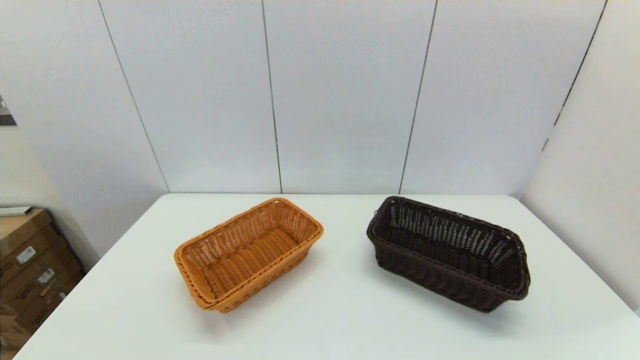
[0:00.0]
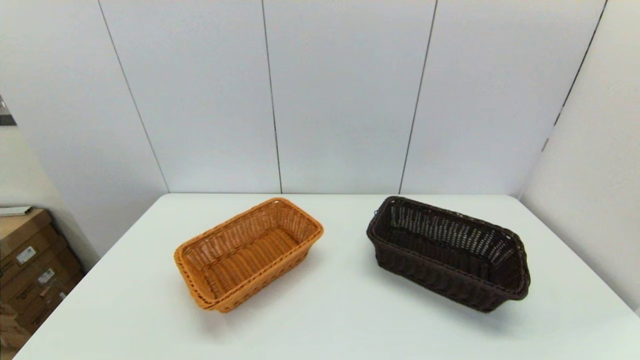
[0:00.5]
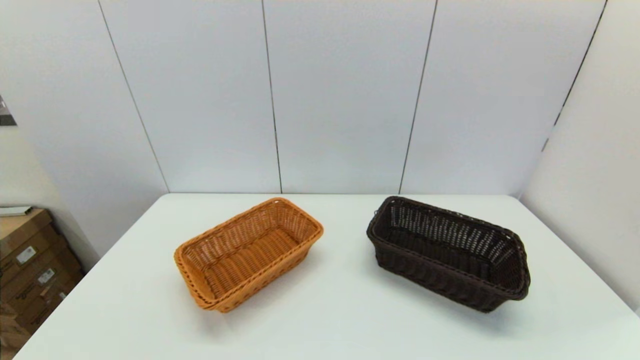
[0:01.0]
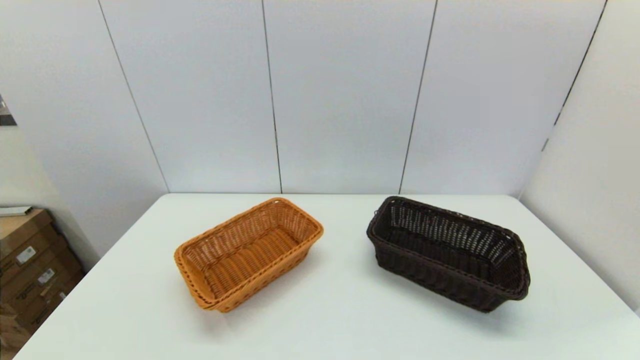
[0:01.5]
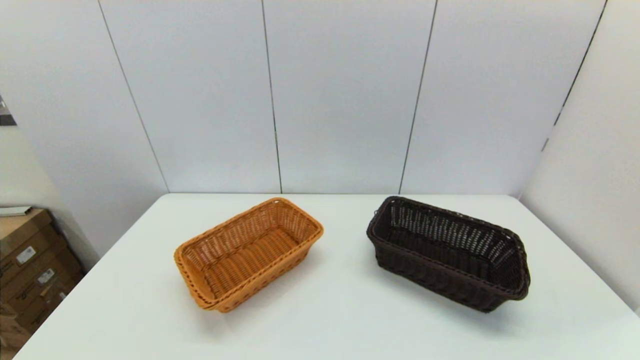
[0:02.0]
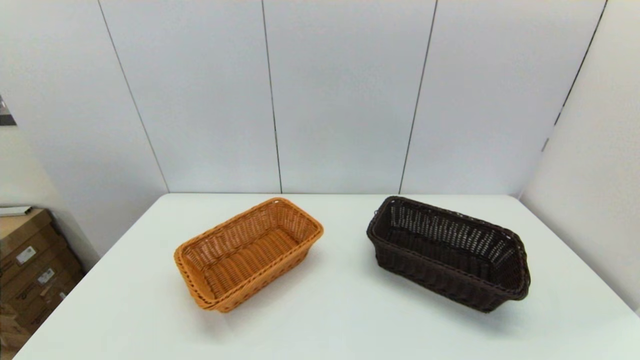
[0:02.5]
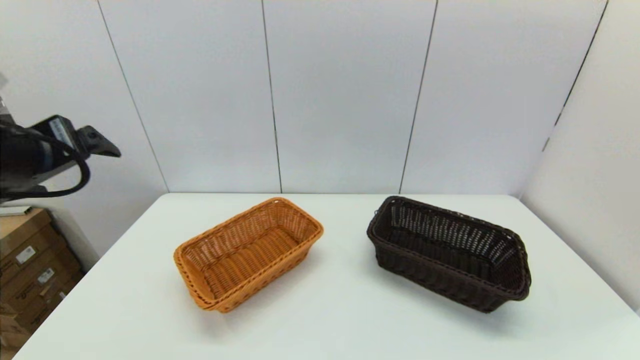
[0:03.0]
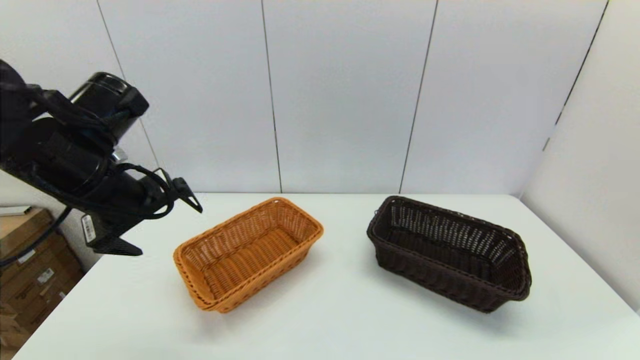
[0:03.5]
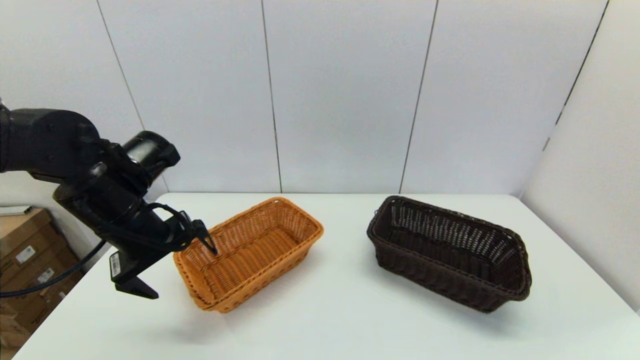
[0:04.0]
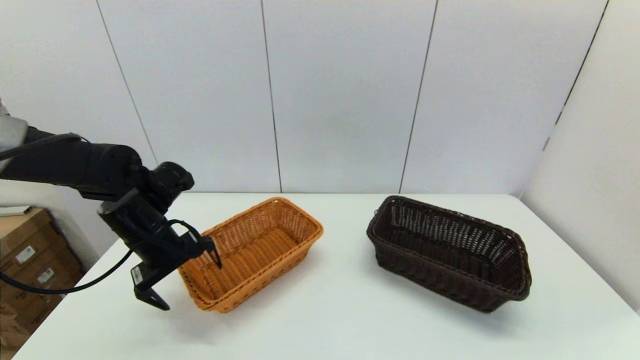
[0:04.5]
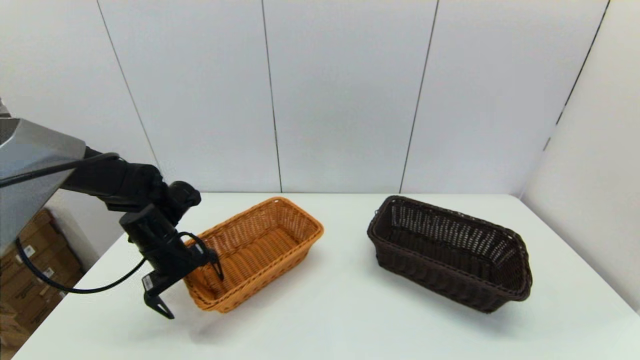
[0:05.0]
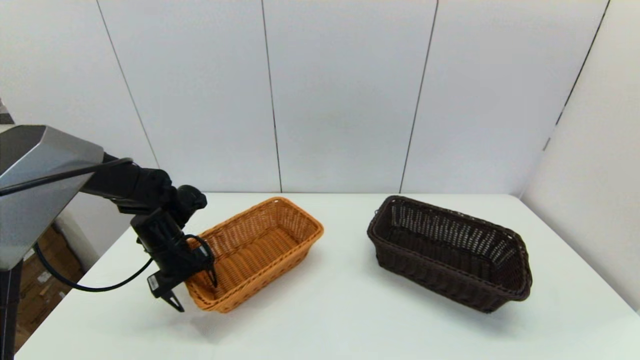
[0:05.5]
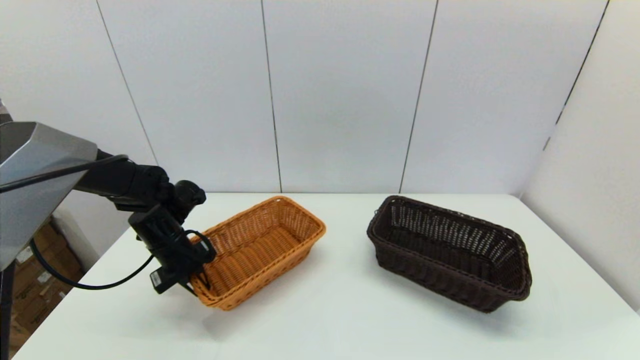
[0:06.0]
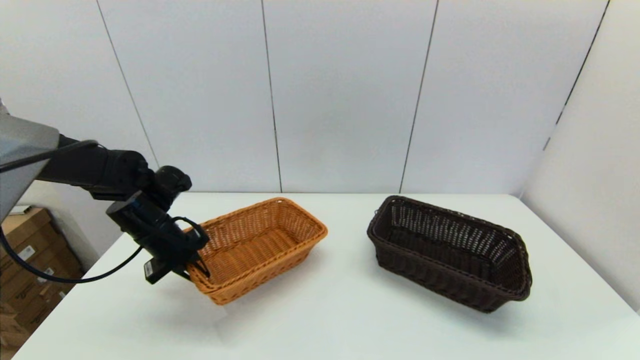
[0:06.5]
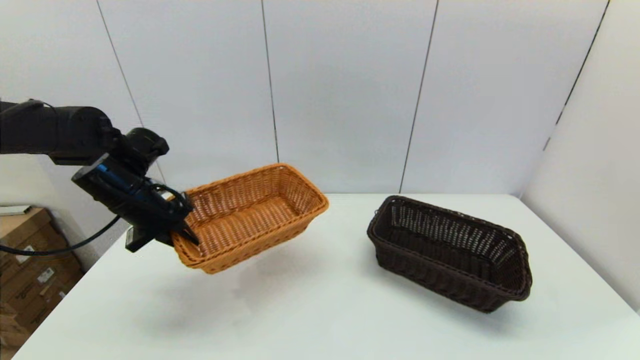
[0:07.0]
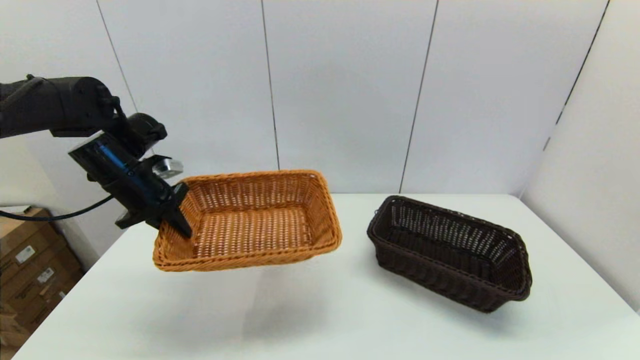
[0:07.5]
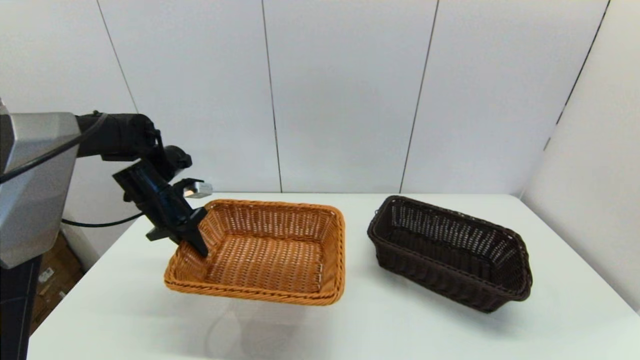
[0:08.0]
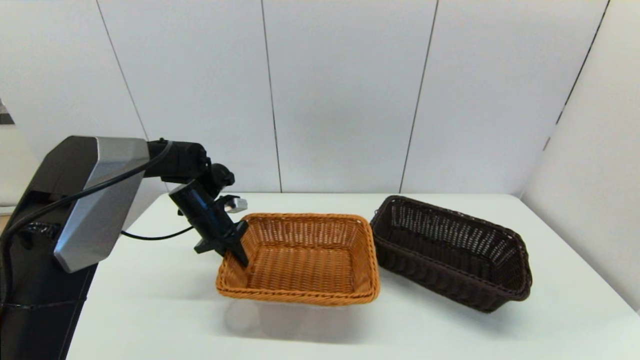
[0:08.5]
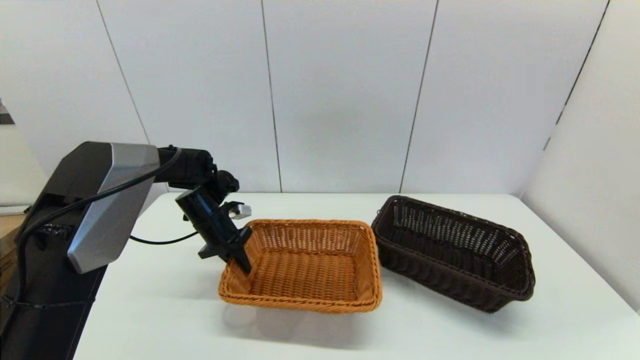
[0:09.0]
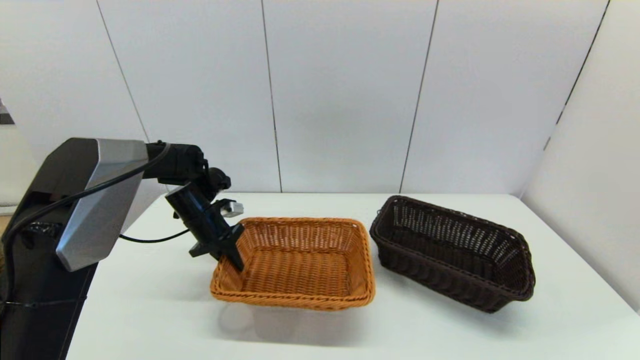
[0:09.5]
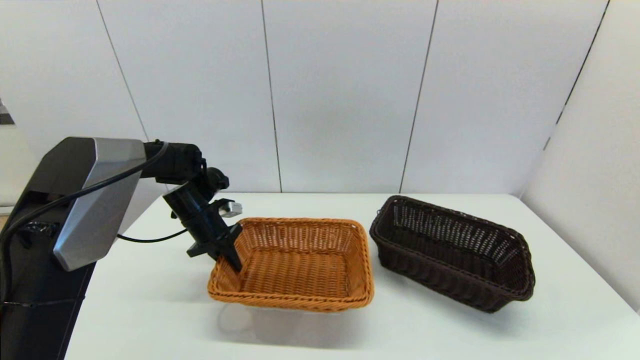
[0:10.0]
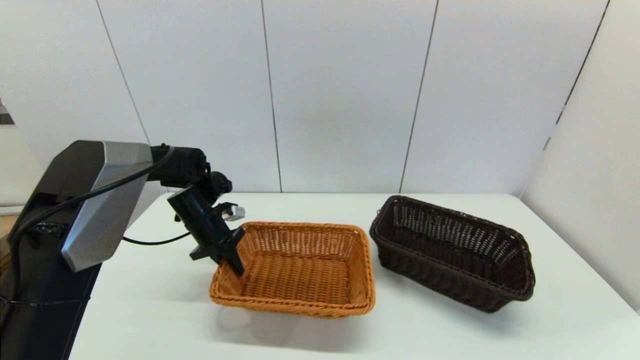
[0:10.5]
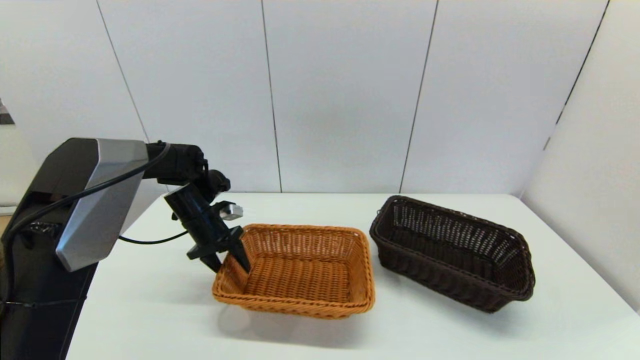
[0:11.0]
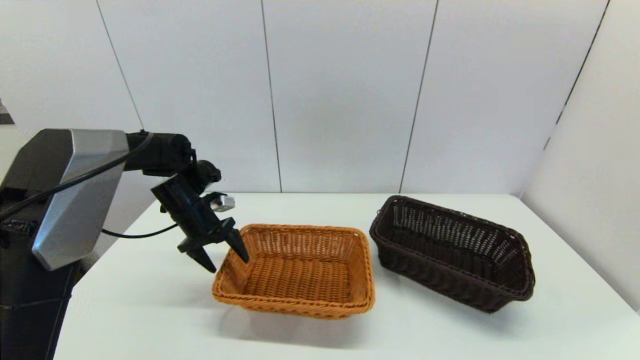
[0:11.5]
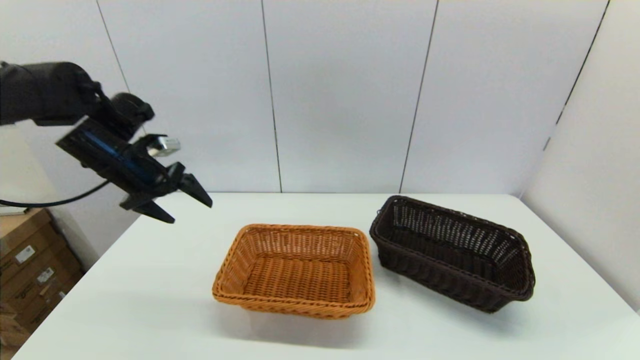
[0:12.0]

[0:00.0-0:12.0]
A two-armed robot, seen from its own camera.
Task of the whole recording: stack a basket on top of another basket.
Step, 0:02.5 to 0:06.0: Grasp the light basket with the left gripper.
Step, 0:06.5 to 0:11.5: Place the light basket on the middle of the table with the left gripper.
0:02.0 to 0:04.0: The left gripper is displaced forward by approximately 30 cm.
0:04.0 to 0:06.0: The left gripper travels downward and forward by approximately 15 cm, and closes up.
0:06.0 to 0:08.0: The left gripper is displaced upward by approximately 5 cm.
0:08.0 to 0:10.0: The left gripper moves downward, about 5 cm.
0:10.0 to 0:12.0: The left gripper shifts some 15 cm upward and to the left, and opens its fingers.

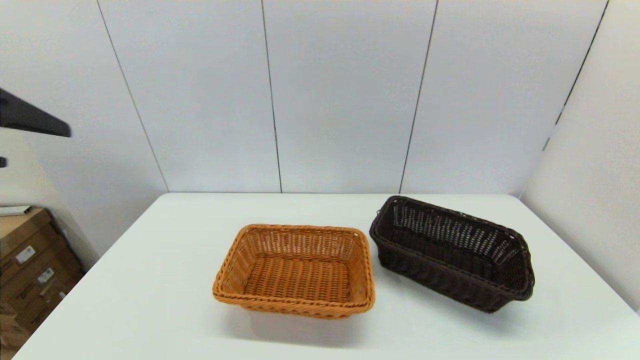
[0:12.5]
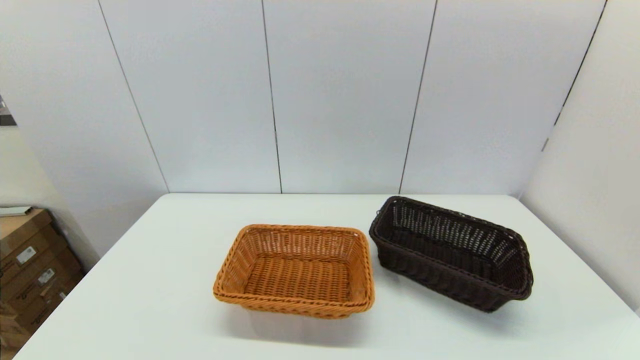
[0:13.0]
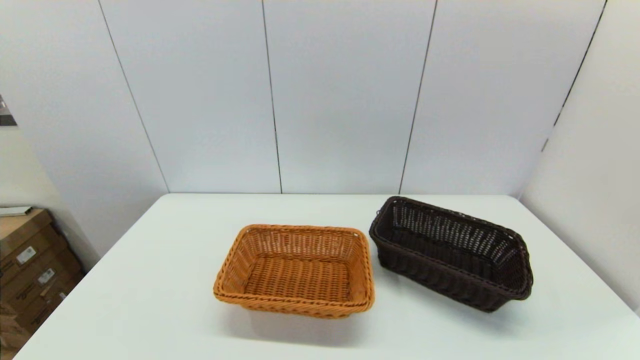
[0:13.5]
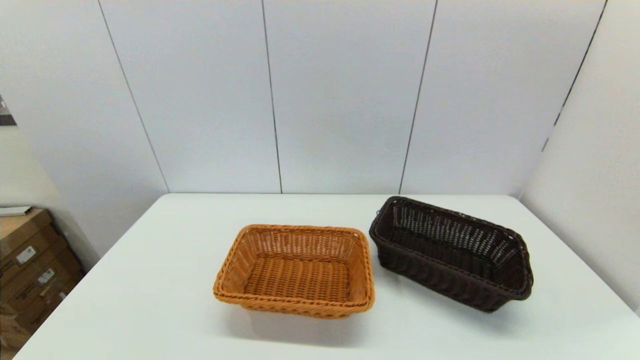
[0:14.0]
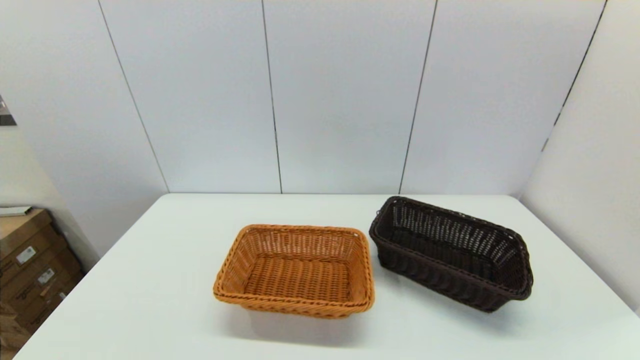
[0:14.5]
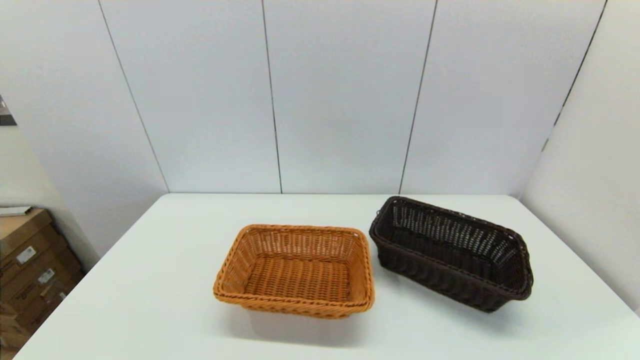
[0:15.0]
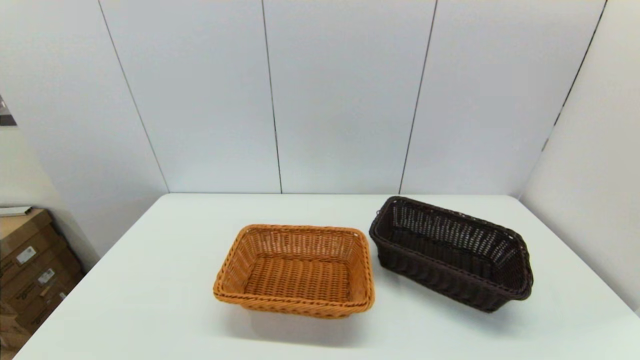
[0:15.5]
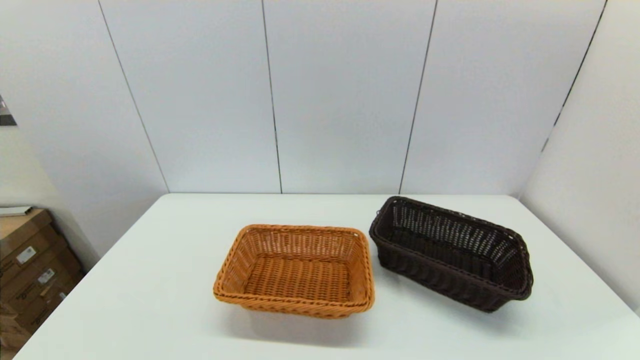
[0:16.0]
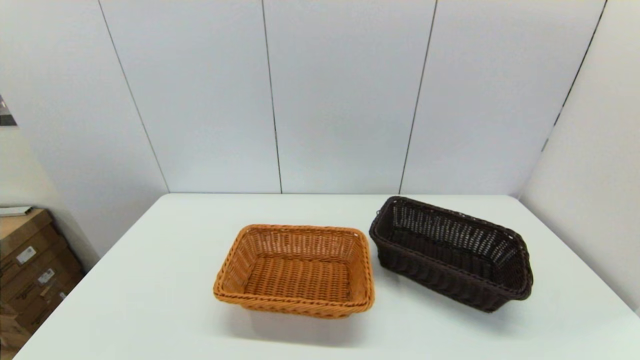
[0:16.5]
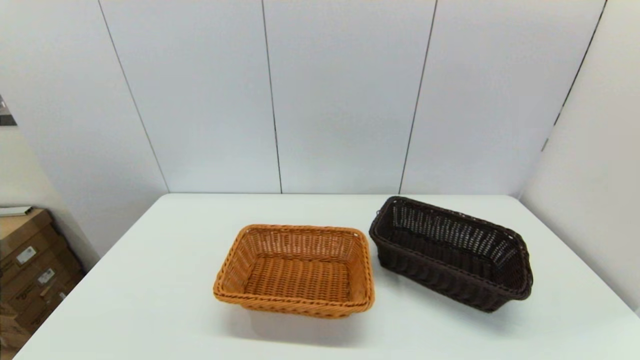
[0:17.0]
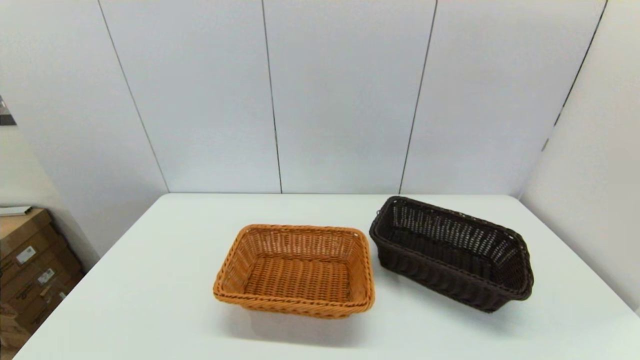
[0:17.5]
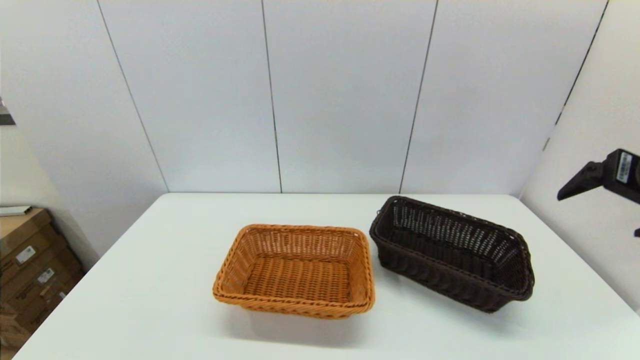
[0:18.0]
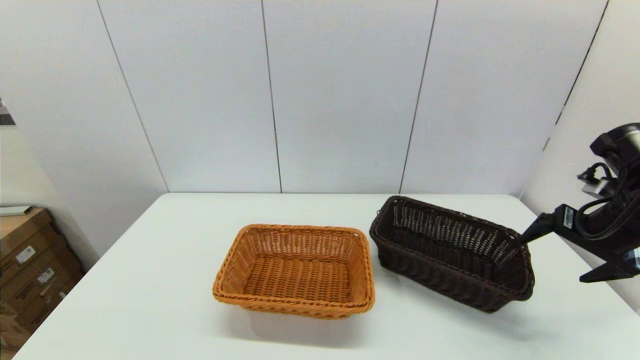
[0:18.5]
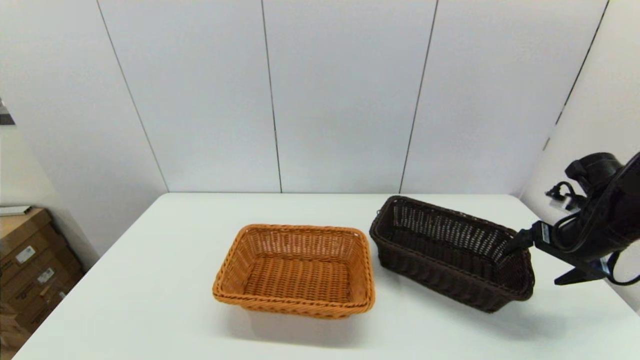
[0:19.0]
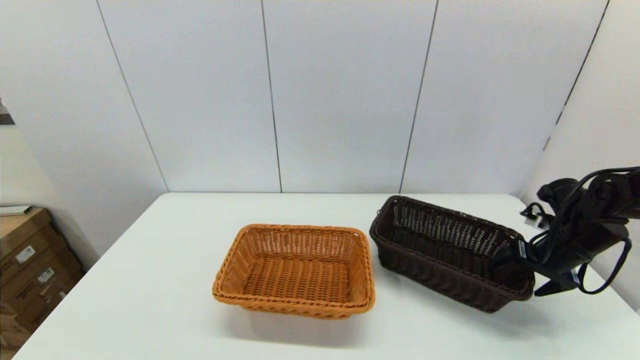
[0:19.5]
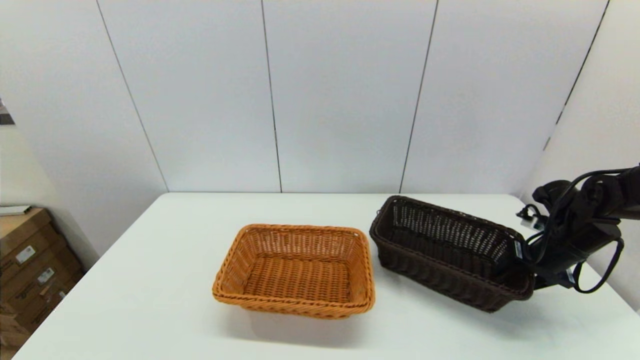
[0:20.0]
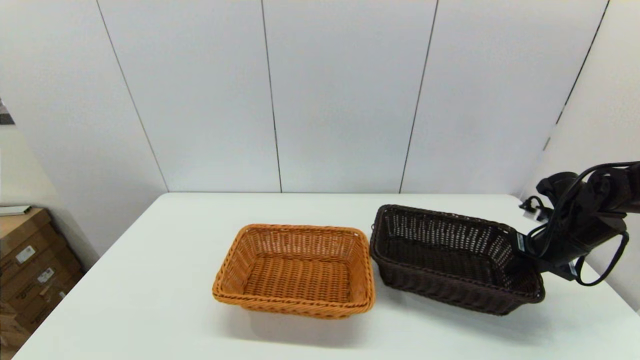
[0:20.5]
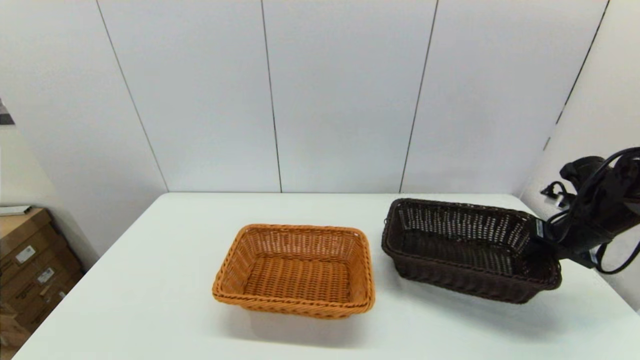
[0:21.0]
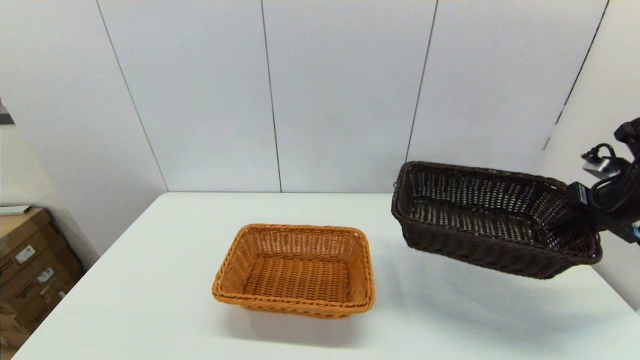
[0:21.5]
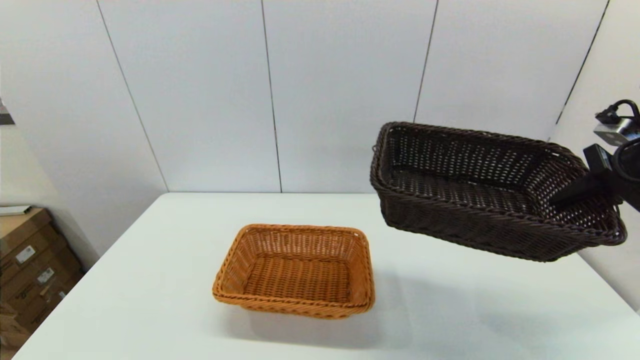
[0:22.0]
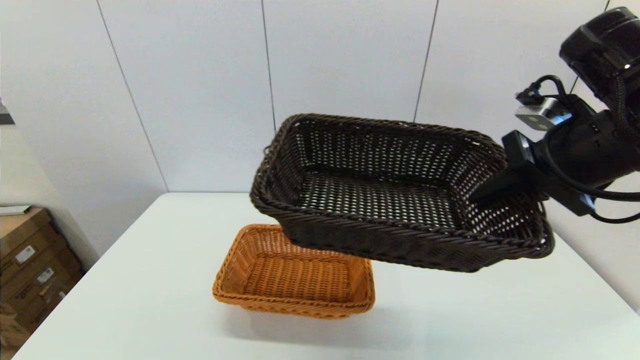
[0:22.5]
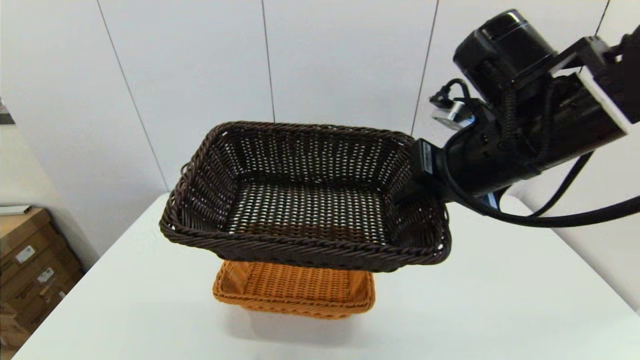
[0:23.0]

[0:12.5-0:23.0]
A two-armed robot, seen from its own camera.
Task of the whole recording: stack a basket on top of another basket.
Step, 0:12.5 to 0:19.5: Grasp the dark basket with the right gripper.
0:12.5 to 0:14.5: The left gripper is displaced downward and backward by roughly 35 cm.
0:16.5 to 0:19.0: The right gripper moves forward, about 35 cm.
0:19.0 to 0:21.0: The right gripper closes up.
0:21.0 to 0:23.0: The right gripper heads to the left and upward, covering about 30 cm.
